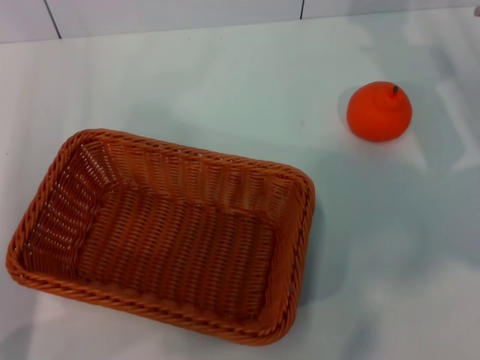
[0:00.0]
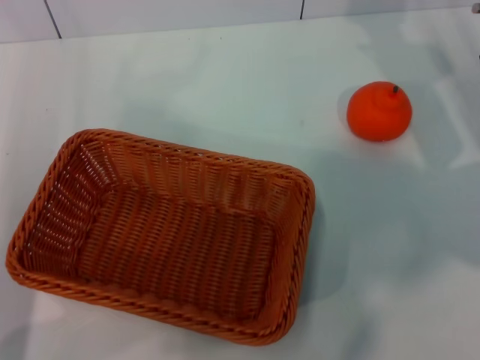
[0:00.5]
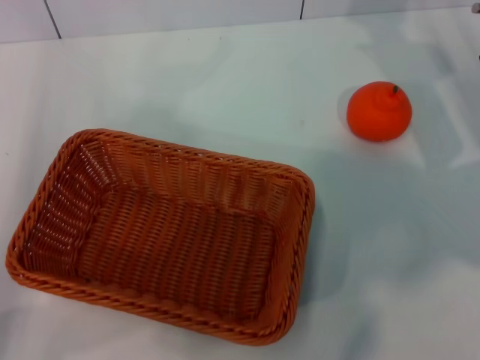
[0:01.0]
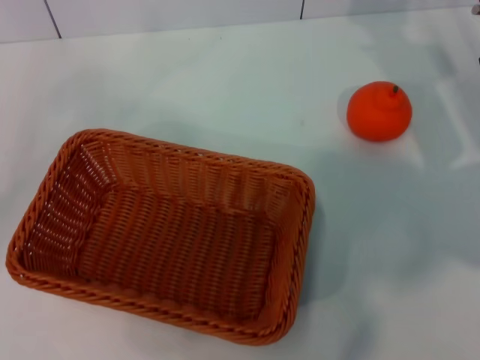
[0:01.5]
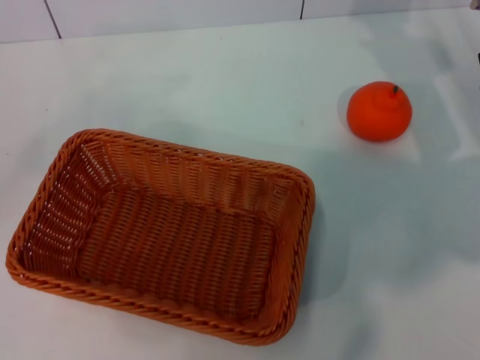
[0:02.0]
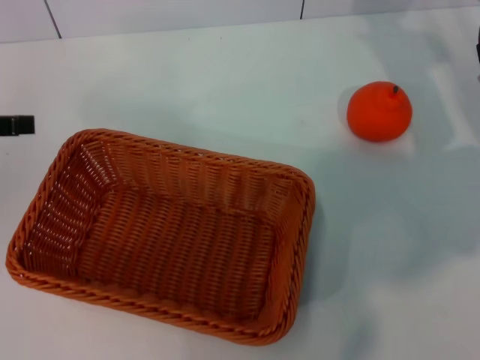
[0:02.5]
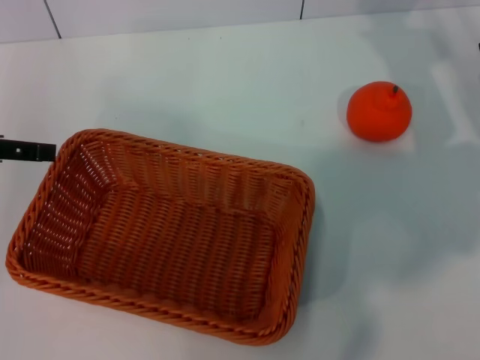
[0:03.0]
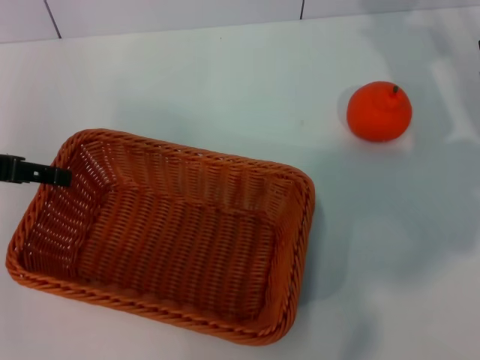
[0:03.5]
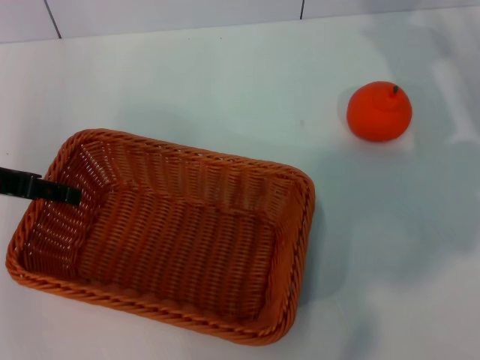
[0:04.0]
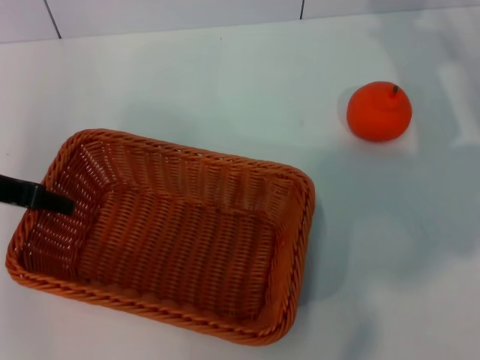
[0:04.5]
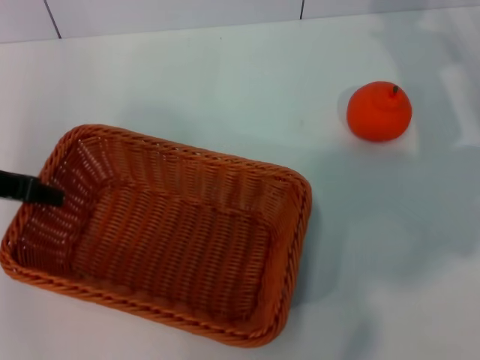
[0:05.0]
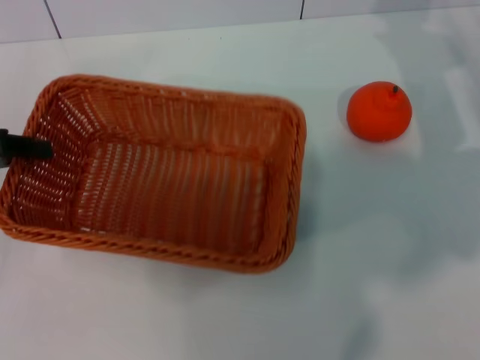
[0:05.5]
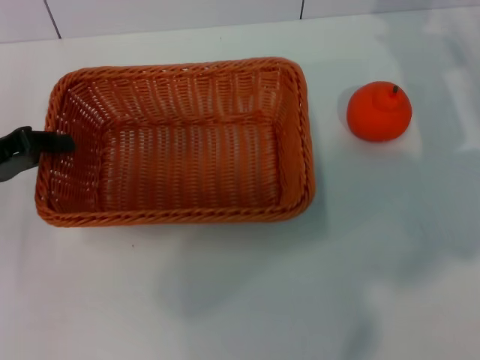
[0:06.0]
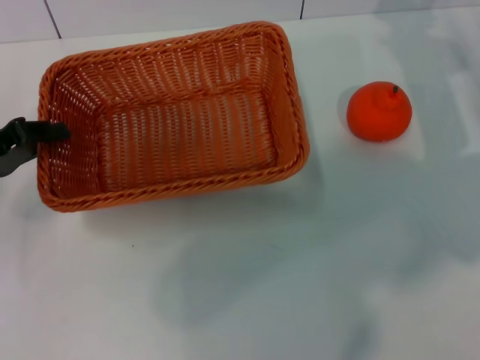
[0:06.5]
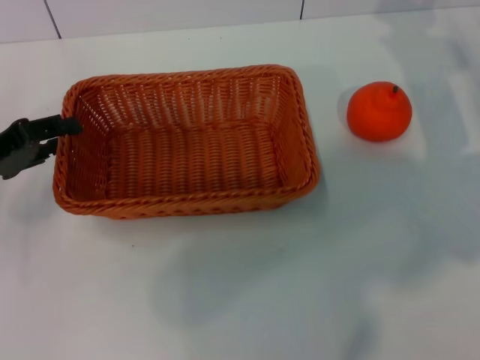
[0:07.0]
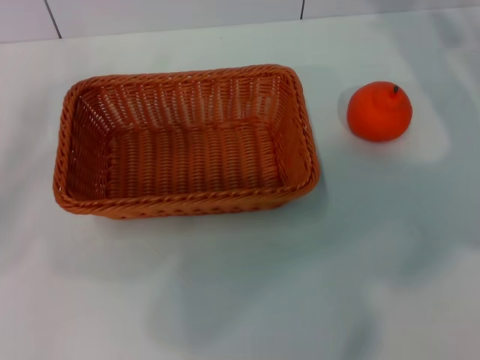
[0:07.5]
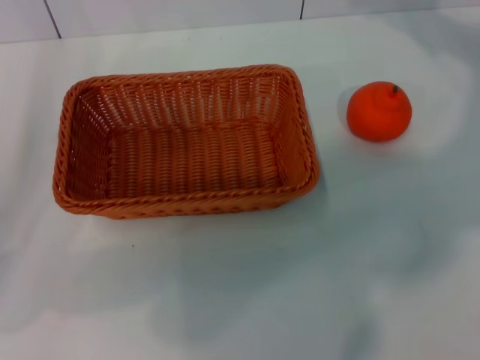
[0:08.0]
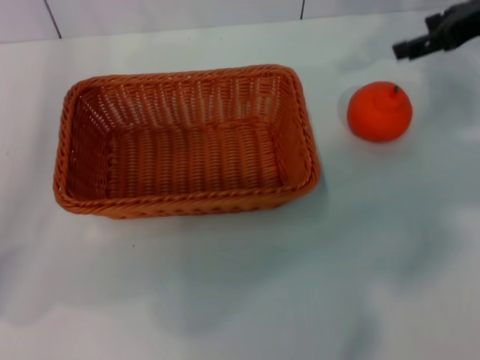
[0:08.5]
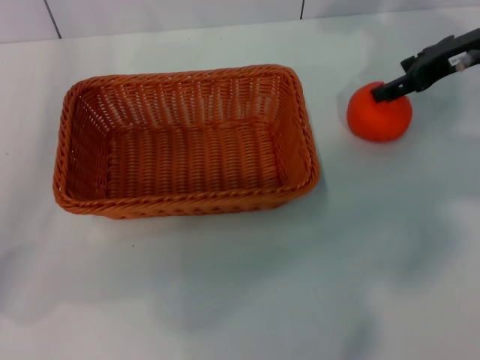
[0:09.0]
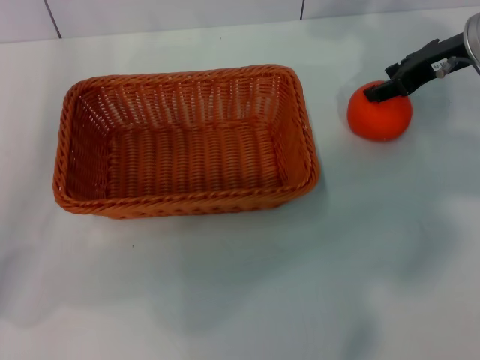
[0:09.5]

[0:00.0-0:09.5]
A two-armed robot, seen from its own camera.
Task of the whole recording: the left gripper pick up the yellow basket and place it horizontally in the middle of the table, the right gripper pick up the orange and place it into the yellow basket.
Step, 0:00.0 to 0:05.5: Pick up the light basket with the left gripper.
Step, 0:06.0 to 0:07.0: Place the light basket in the center of view with the left gripper.
0:00.0 to 0:02.0: The left gripper heads upward and to the left, covering approximately 15 cm.
0:02.0 to 0:04.0: The left gripper goes about 10 cm to the right.
0:04.0 to 0:05.5: The left gripper closes its fingers.
0:05.5 to 0:07.5: The left gripper opens.
0:07.5 to 0:09.5: The left gripper moves to the right, about 5 cm. The right gripper travels upward and back again, roughly 10 cm each way.

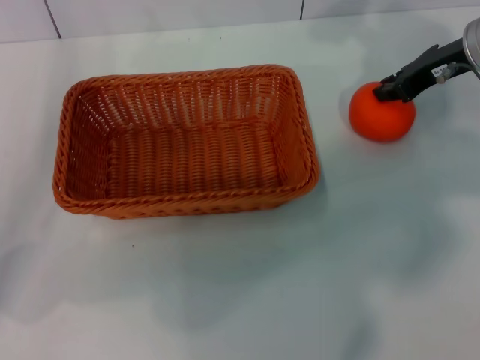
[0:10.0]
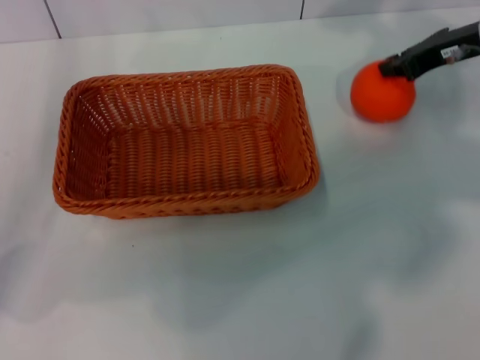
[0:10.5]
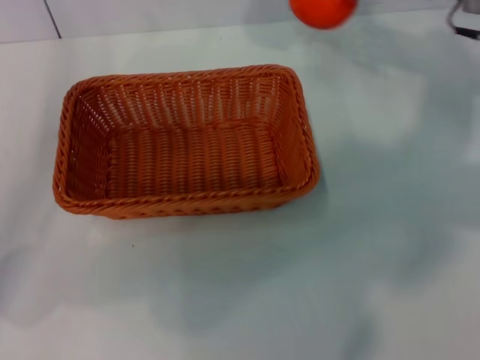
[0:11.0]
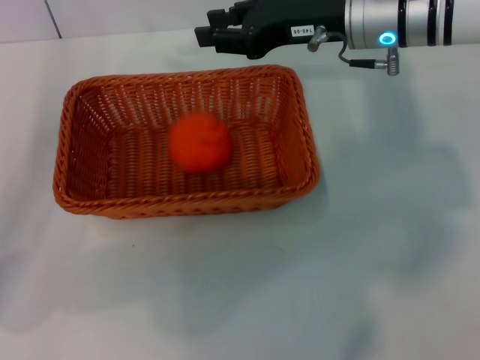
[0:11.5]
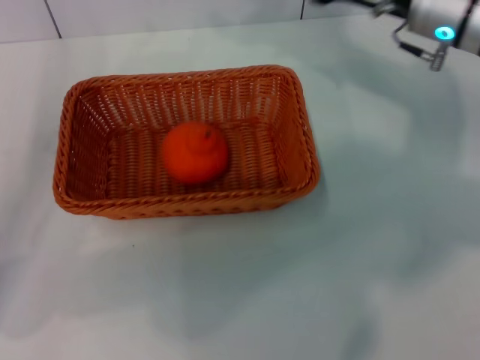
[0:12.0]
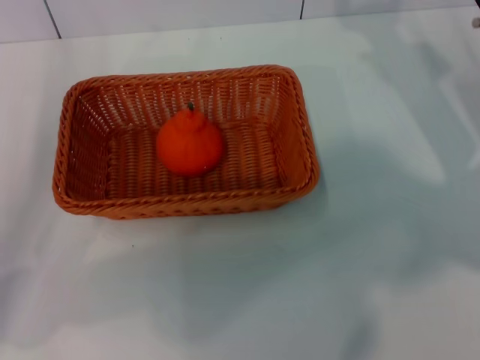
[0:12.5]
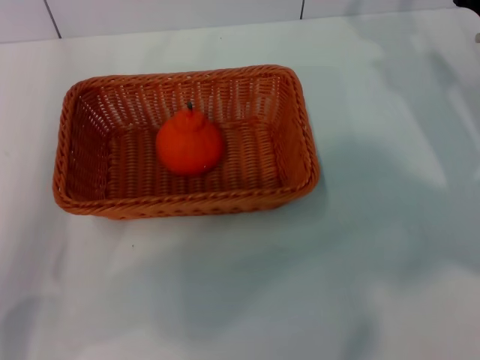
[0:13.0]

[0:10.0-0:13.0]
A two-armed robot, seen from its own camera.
Task of the whole recording: the left gripper pick up the yellow basket and place it horizontally in the middle of the table, the right gripper pick up the orange and place it into the yellow basket.
Step, 0:11.0 to 0:11.5: Place the orange into the light basket with the right gripper.
0:10.0 to 0:11.5: The right gripper moves to the left, roughly 10 cm.
0:11.5 to 0:13.0: The right gripper travels to the right and downward by roughly 15 cm, and opens up.
